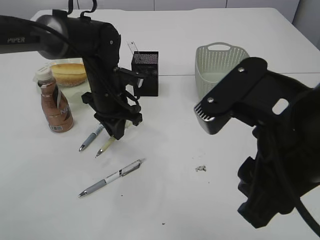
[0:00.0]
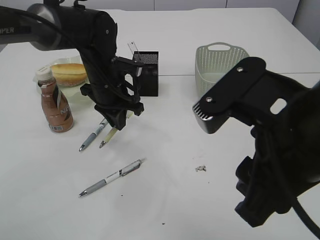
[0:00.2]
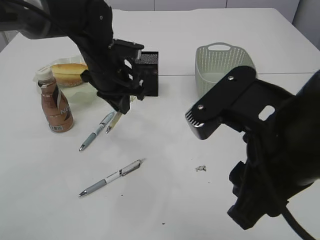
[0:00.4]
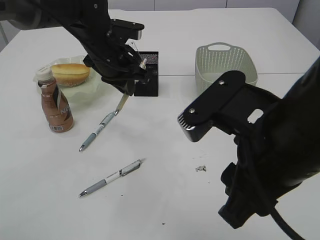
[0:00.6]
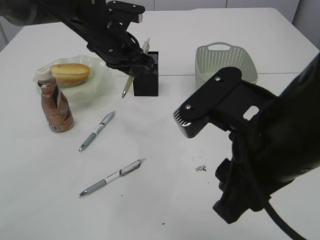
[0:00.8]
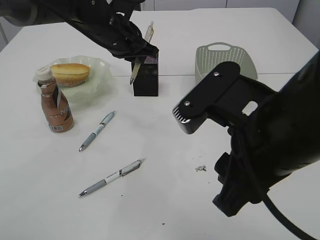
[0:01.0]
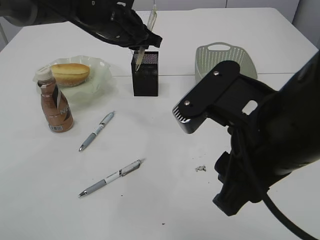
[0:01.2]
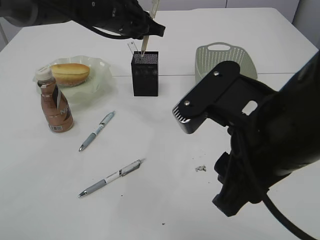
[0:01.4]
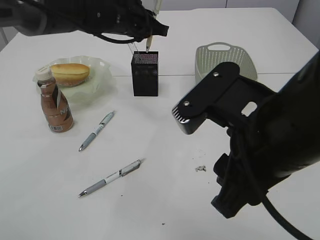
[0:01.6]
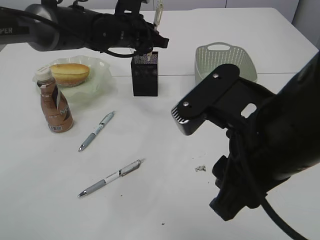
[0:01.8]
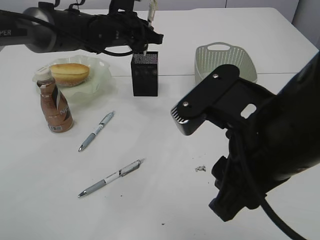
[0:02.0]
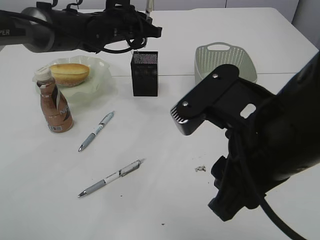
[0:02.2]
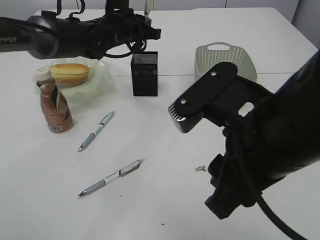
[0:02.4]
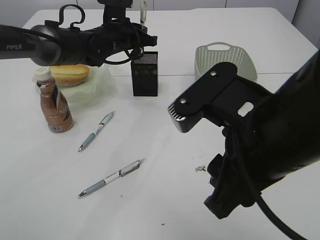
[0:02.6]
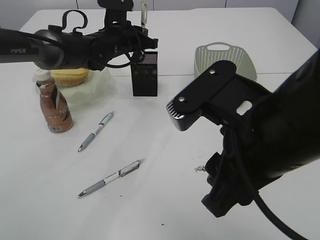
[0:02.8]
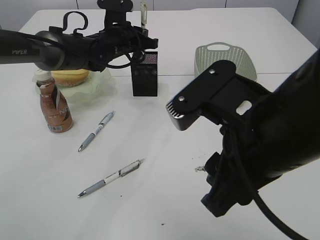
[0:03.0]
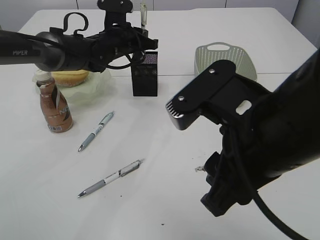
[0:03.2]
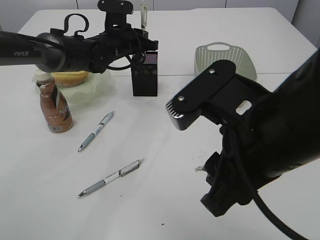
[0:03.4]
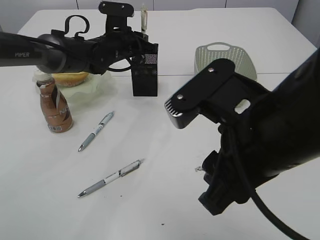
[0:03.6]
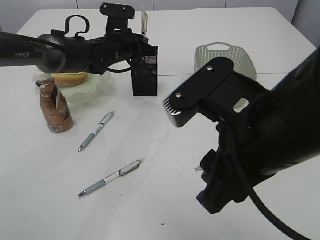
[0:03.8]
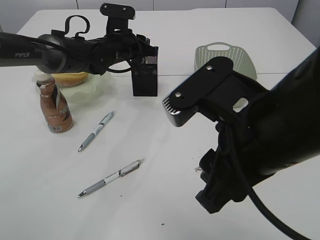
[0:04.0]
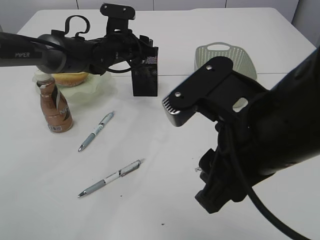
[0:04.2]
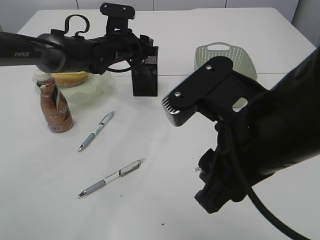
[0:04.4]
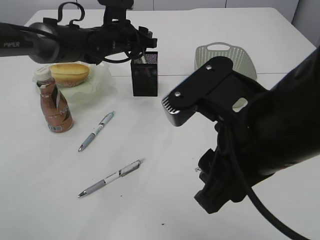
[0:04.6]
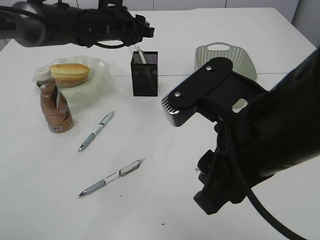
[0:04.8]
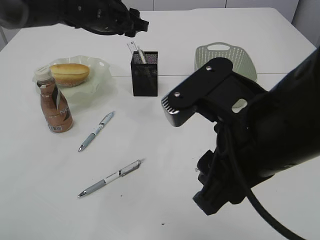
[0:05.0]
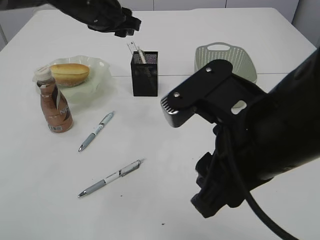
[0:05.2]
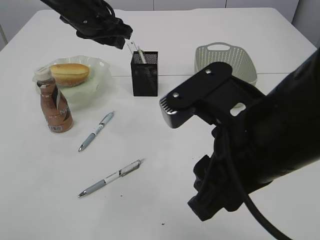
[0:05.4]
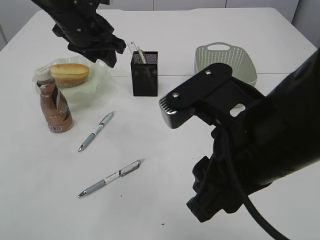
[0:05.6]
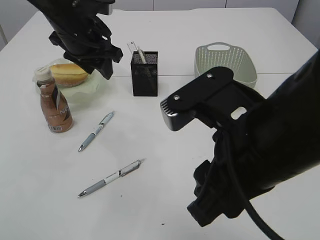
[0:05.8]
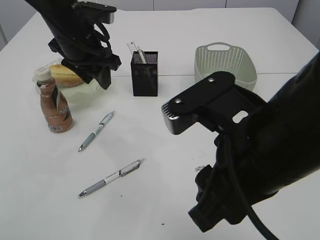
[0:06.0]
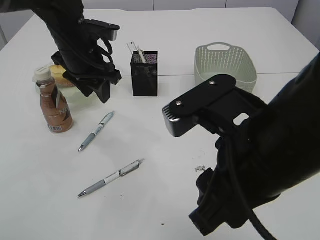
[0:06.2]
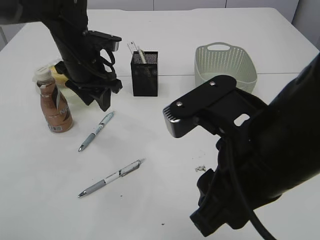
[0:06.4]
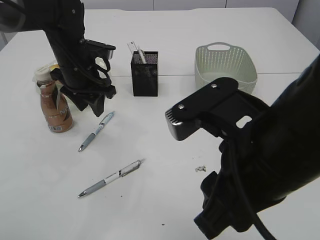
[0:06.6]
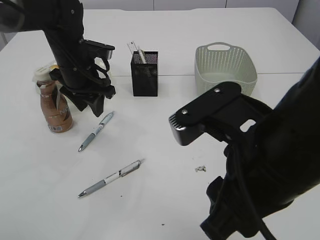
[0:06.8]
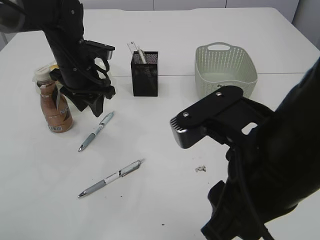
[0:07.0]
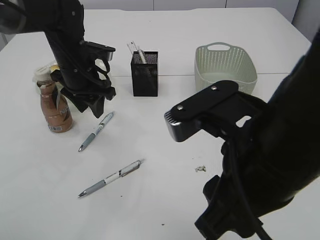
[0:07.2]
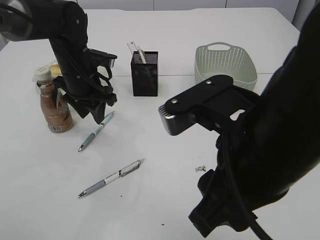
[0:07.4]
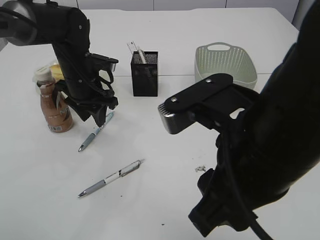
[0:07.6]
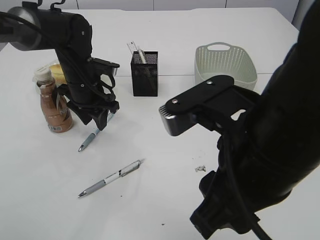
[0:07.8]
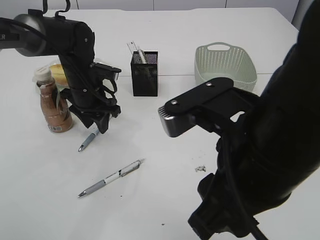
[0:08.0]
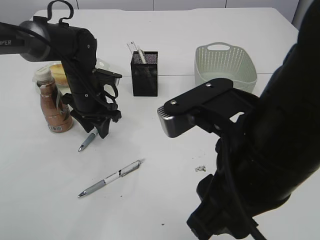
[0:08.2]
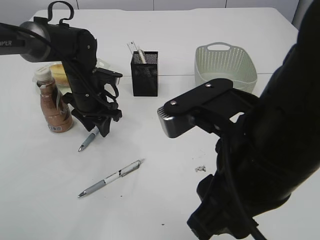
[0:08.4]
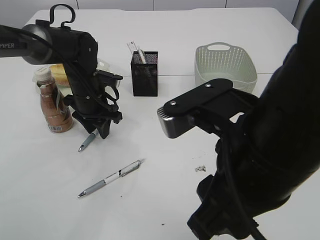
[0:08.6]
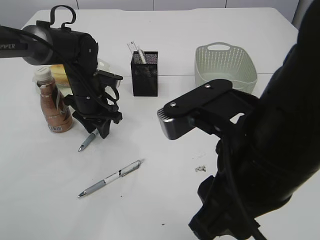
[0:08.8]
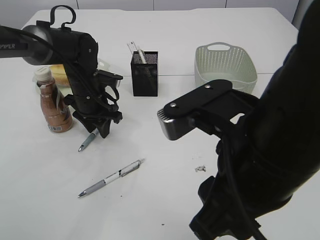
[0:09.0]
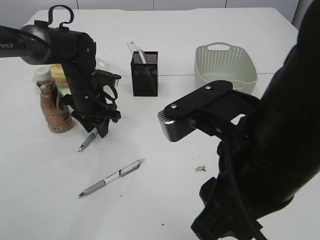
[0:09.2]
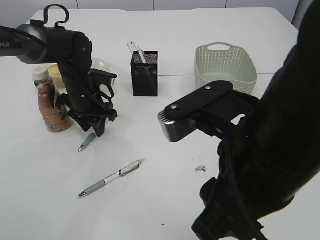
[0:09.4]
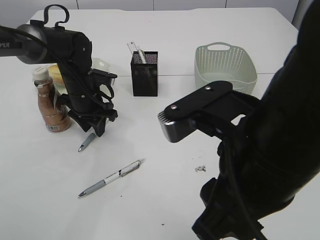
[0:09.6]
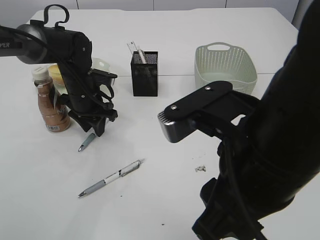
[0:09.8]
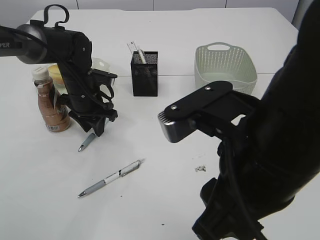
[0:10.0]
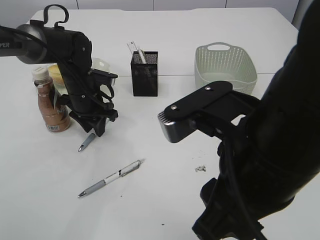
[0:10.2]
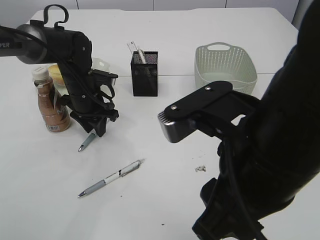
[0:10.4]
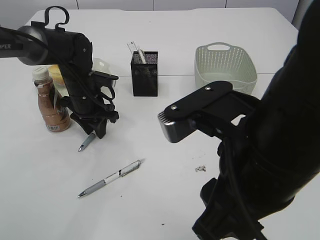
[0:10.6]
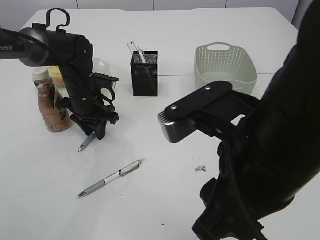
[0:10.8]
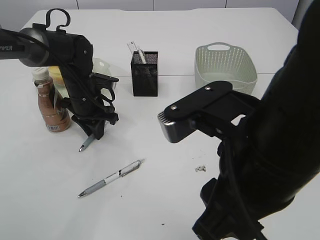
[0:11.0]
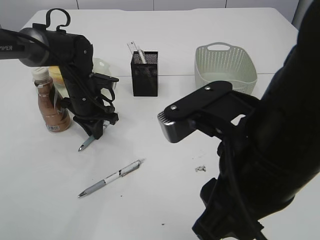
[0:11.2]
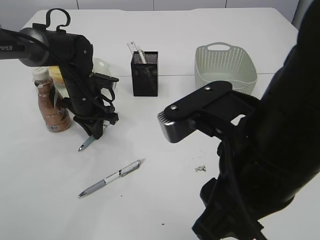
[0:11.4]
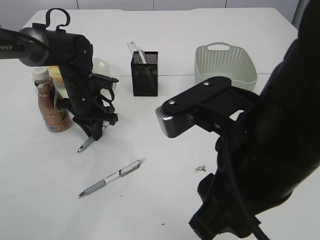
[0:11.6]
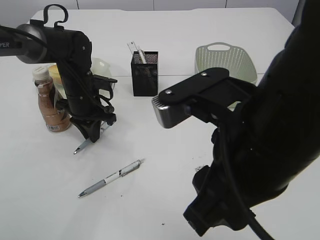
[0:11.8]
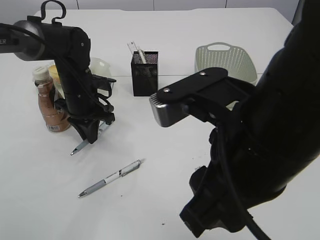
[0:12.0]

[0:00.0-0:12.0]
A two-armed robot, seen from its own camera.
Step, 0:00.6 to 0:04.8: Place the pen into the pen holder.
0:00.0 to 0:01.6: The left gripper travels upward and forward by some 15 cm.
0:01.6 to 0:03.0: The left gripper moves downward, some 5 cm.
0:03.0 to 0:04.4: The left gripper opens its fingers.
0:04.4 to 0:06.0: The left gripper moves backward and upward, roughly 15 cm.
0:06.0 to 0:07.6: The left gripper shifts some 10 cm downward.
0:07.6 to 0:09.0: The grippers make only small movements.
0:09.0 to 0:10.4: Neither gripper changes place.
0:10.4 to 0:12.0: The left gripper closes.

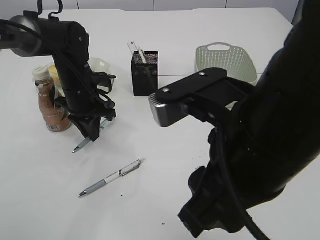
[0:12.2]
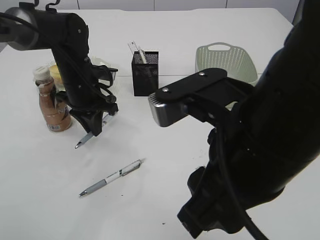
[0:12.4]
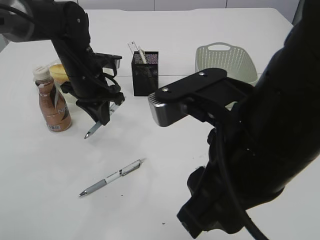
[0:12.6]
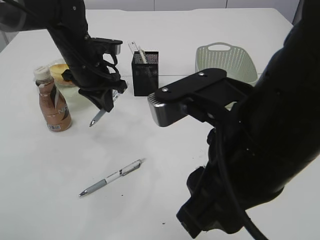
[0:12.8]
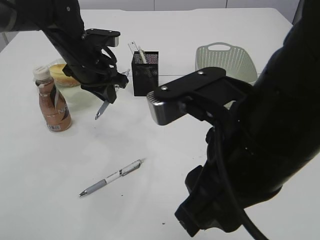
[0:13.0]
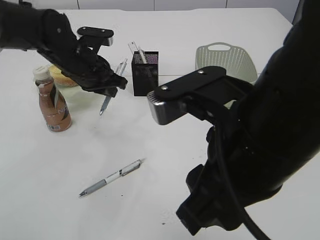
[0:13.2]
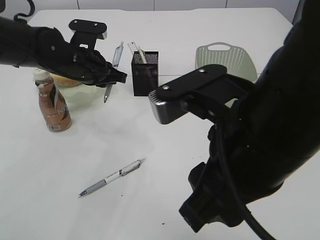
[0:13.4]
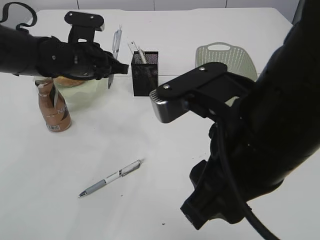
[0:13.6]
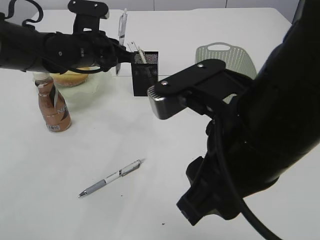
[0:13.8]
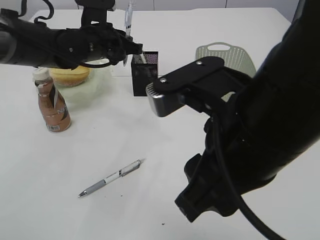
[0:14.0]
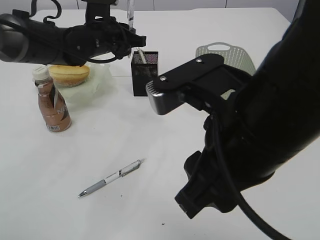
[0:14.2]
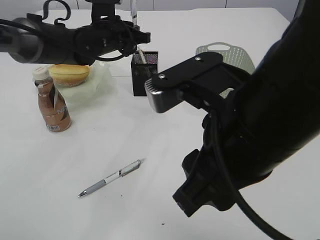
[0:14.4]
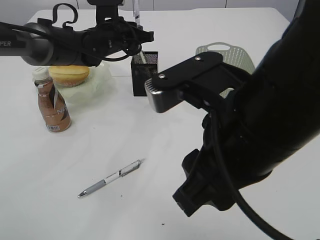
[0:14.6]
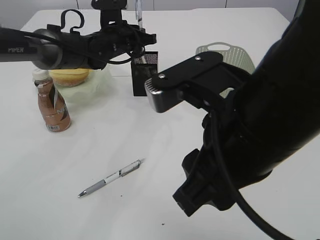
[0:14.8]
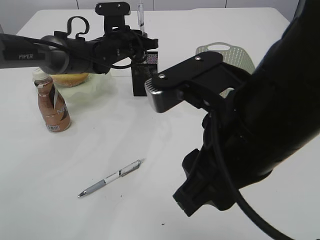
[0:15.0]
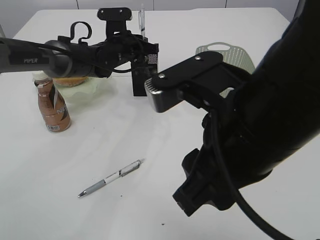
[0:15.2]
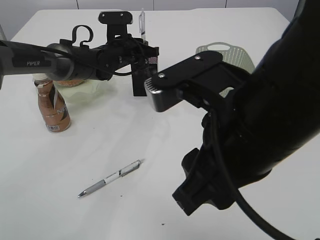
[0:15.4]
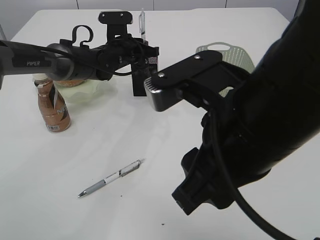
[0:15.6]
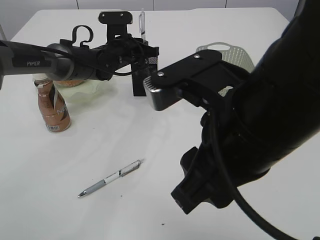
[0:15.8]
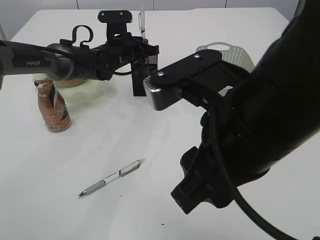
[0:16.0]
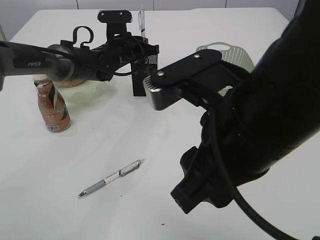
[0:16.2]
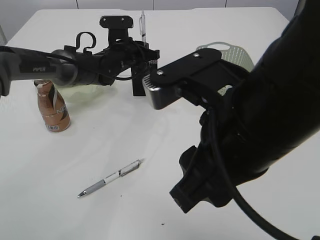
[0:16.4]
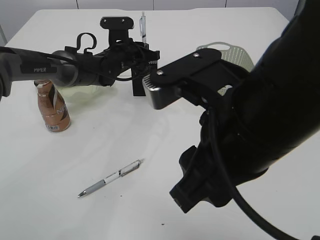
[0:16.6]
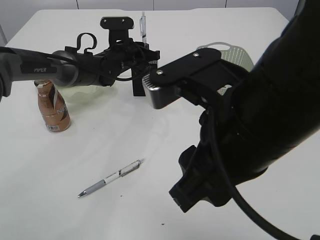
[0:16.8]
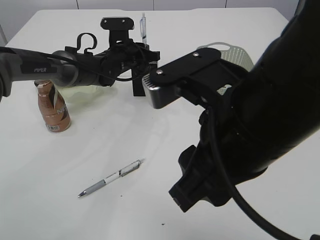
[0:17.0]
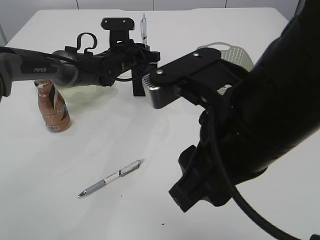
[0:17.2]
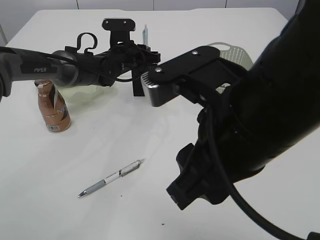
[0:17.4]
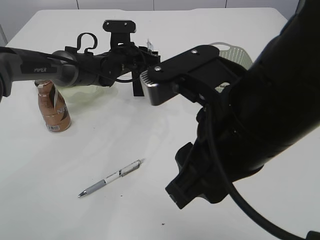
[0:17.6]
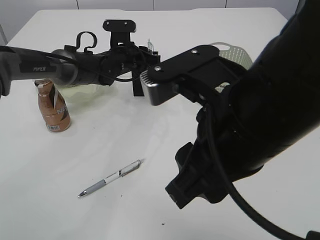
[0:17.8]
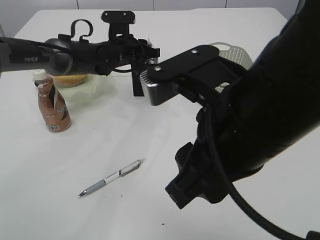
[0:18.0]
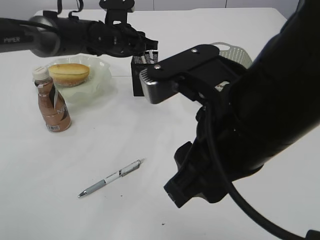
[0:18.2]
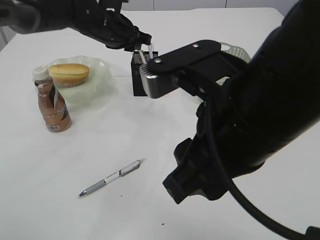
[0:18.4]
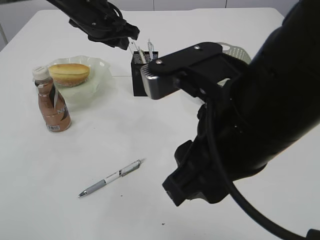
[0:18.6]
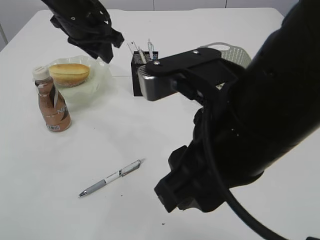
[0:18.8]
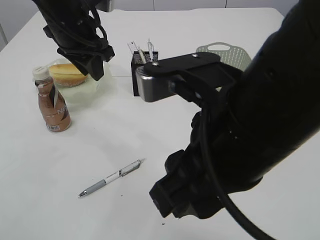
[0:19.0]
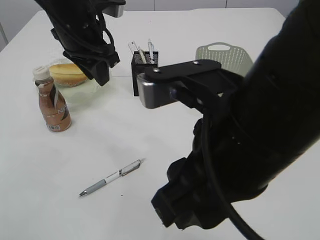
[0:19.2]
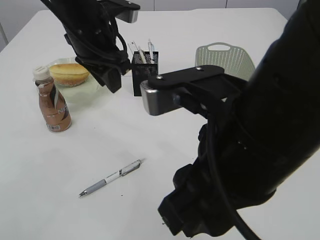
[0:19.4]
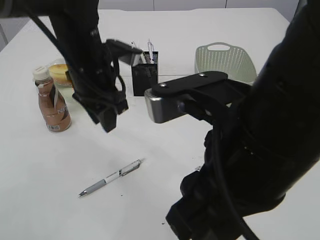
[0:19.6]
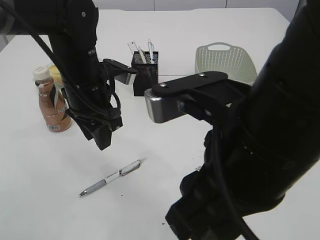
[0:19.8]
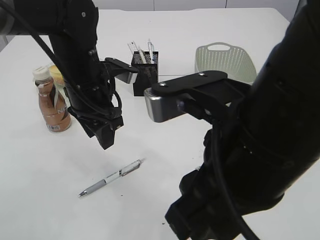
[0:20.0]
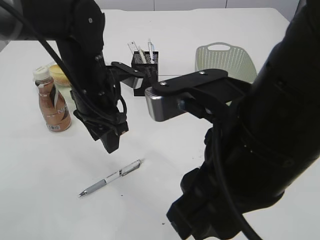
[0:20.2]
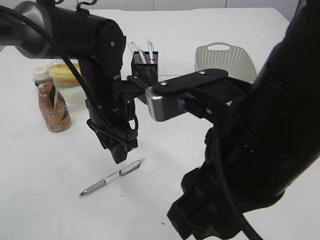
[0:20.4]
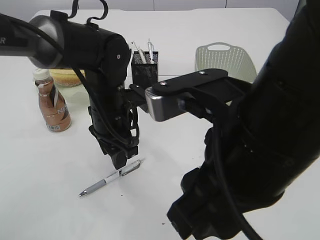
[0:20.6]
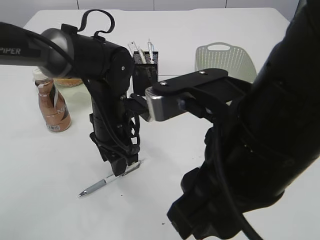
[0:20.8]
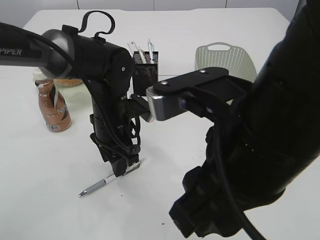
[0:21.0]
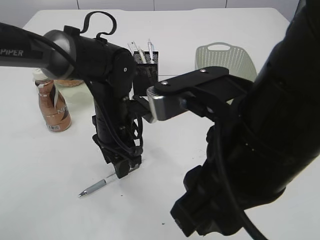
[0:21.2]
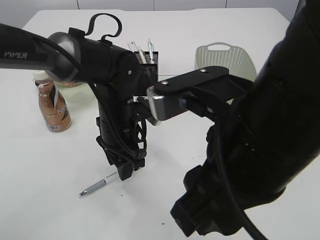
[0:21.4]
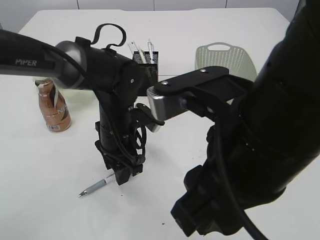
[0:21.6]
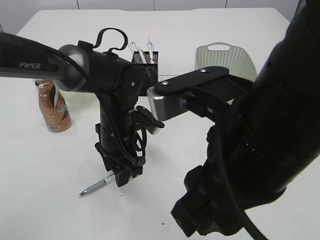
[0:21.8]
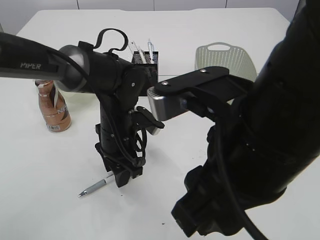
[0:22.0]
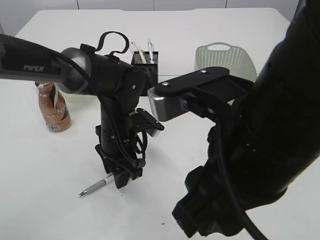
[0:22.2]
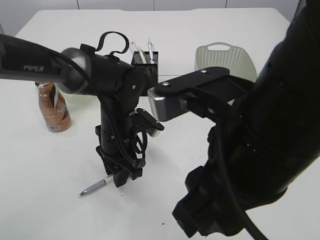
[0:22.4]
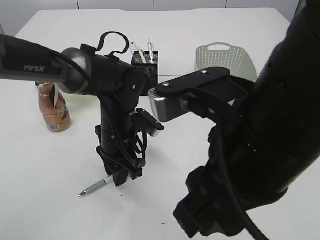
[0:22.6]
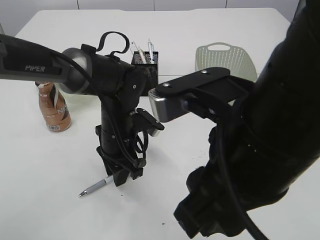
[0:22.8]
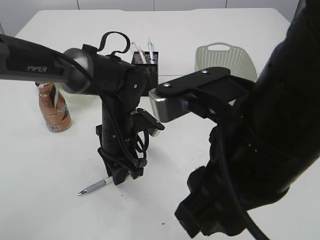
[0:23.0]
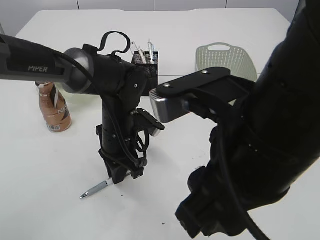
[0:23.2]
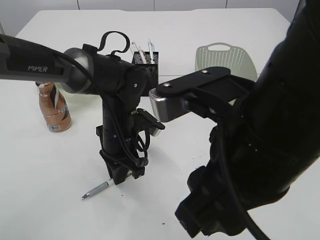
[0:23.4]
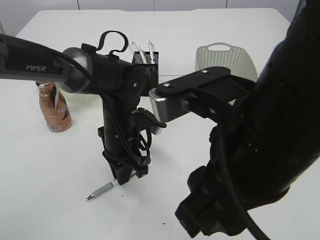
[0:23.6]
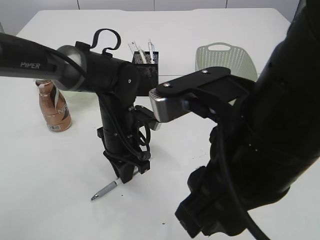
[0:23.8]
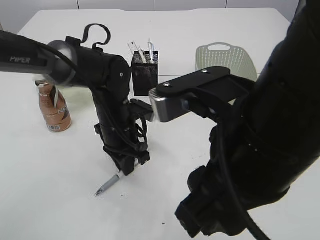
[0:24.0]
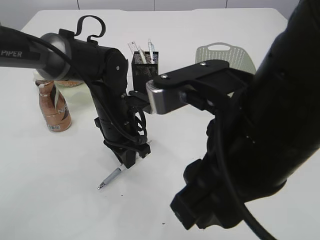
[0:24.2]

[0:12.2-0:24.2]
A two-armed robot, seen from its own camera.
Step, 0:12.8 to 0:18.4: Place the pen into the pen holder.
0:12.2 to 0:13.8: The left gripper moves upward, about 5 cm.
0:13.8 to 0:15.2: The left gripper travels forward by roughly 10 cm.
0:15.2 to 0:16.6: The grippers make only small movements.
0:16.6 to 0:18.2: The left gripper heads upward, covering some 5 cm.
0:18.2 to 0:19.8: The left gripper moves backward, approximately 15 cm.
0:19.8 to 0:21.2: The left gripper is displaced downward by some 10 cm.
0:21.2 to 0:22.6: The grippers make only small movements.
0:22.6 to 0:24.2: The left gripper closes.
